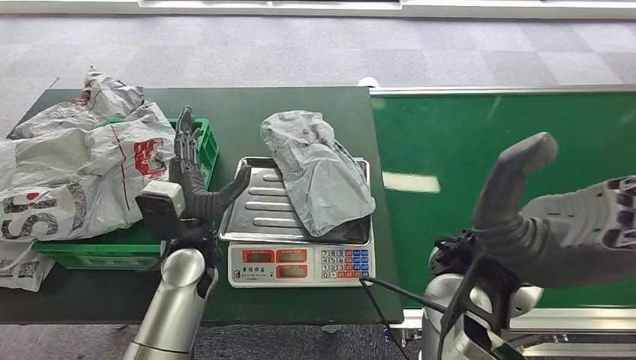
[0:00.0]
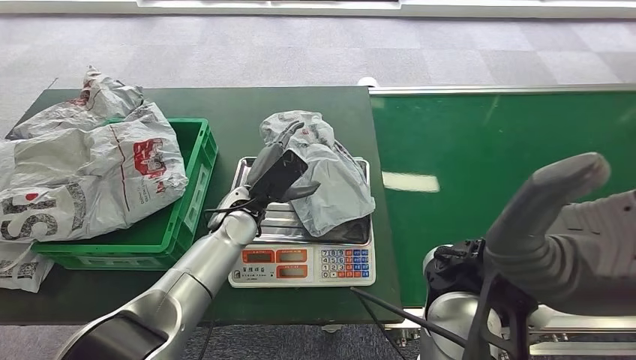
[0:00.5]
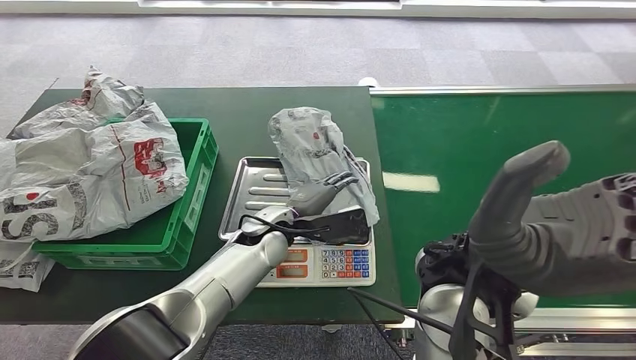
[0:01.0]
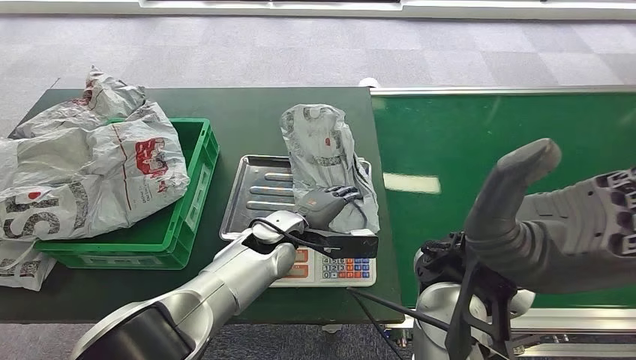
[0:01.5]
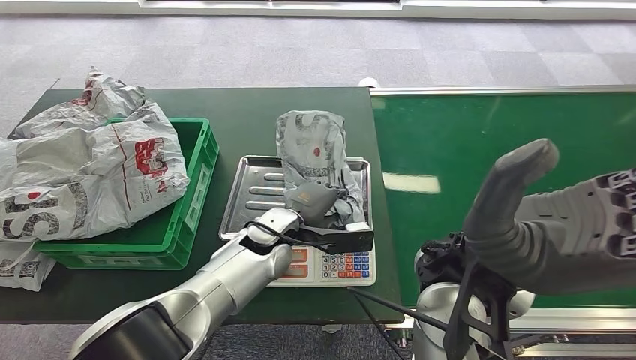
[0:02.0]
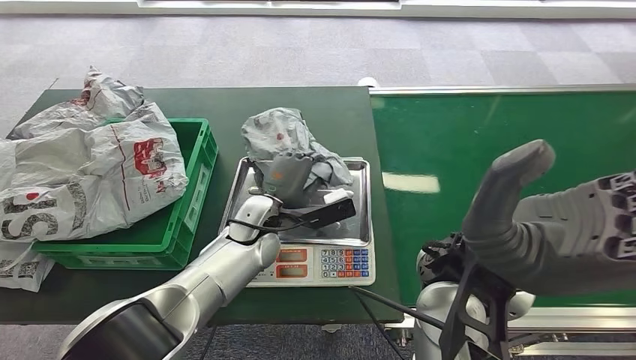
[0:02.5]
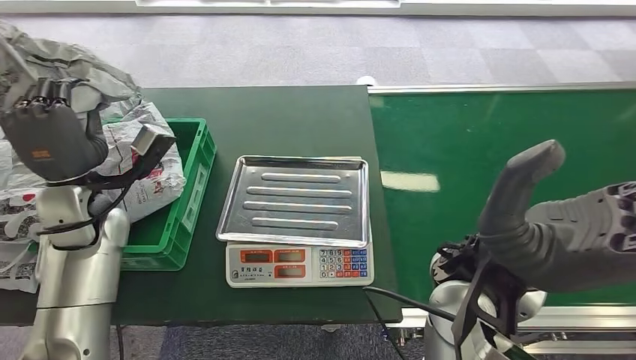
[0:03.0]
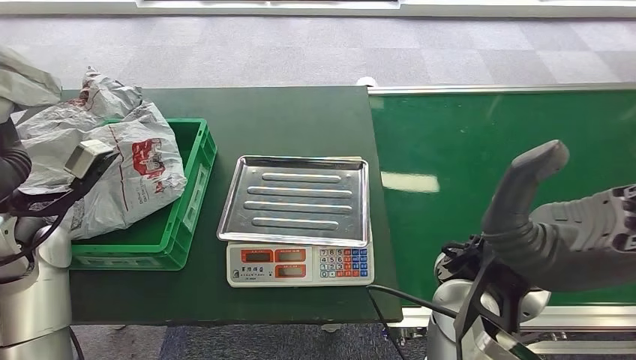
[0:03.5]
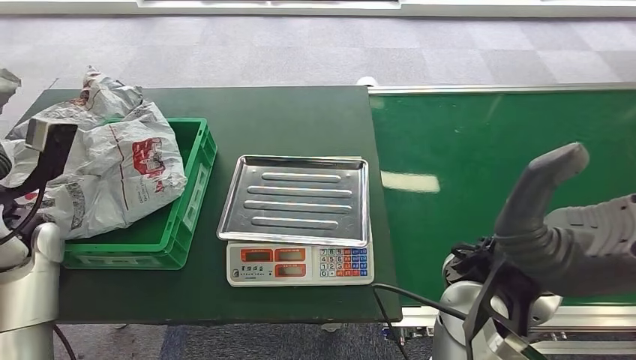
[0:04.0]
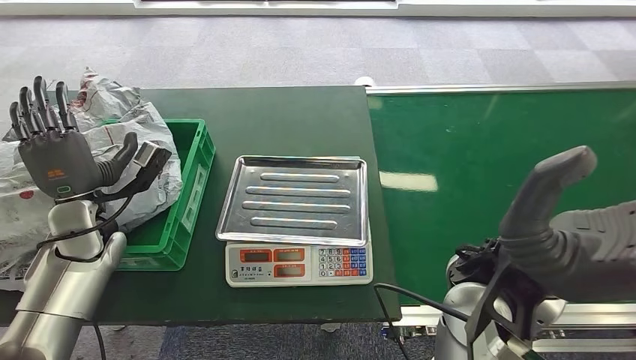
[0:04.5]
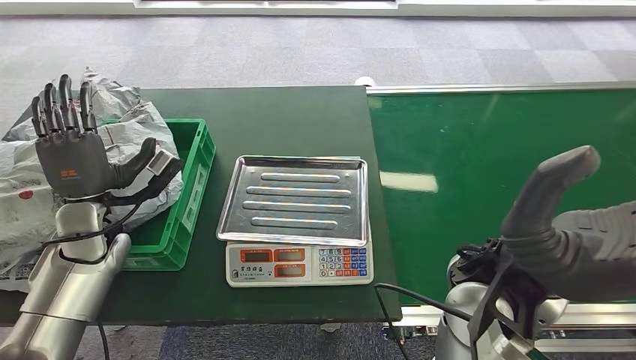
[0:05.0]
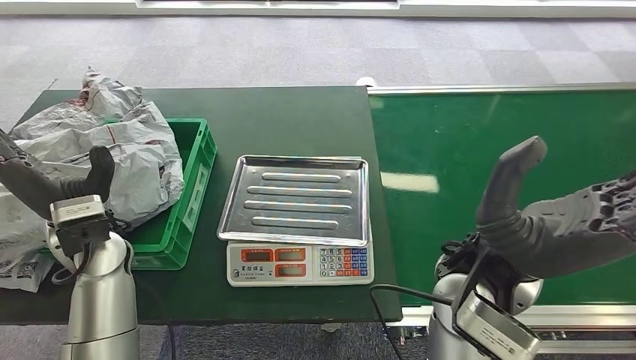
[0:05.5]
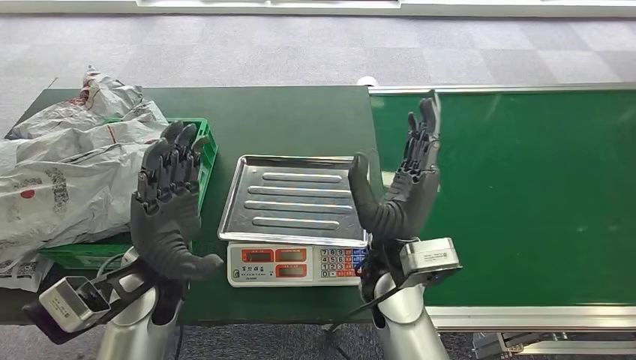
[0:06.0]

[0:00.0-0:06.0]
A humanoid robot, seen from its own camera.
Step, 0:01.0 to 0:03.5: Pick up the package from the inbound machine.
Step, 0:04.0 to 0:06.0: Place the package into the parcel locker.
0:00.0 to 0:02.0: The left hand moves to the right, approximately 10 cm.
